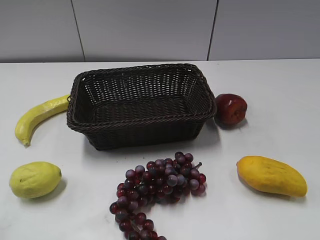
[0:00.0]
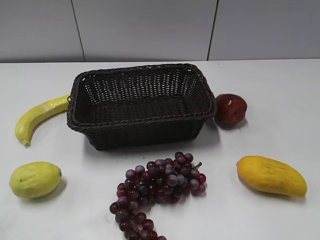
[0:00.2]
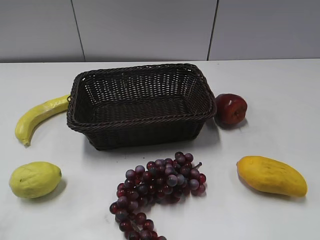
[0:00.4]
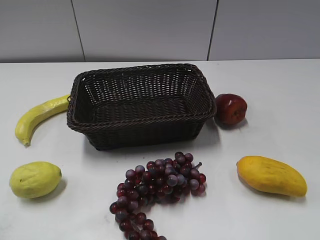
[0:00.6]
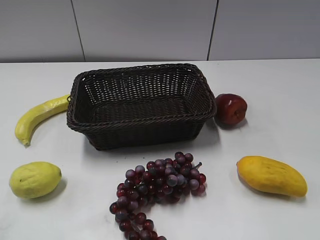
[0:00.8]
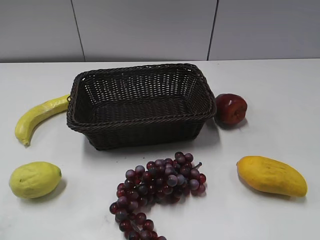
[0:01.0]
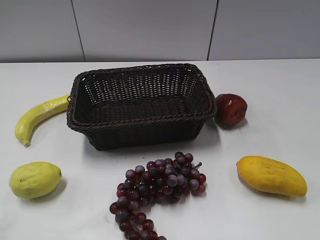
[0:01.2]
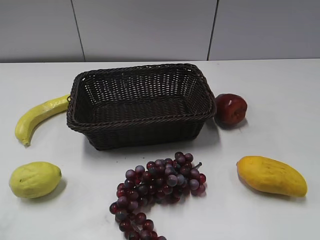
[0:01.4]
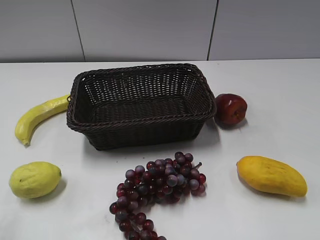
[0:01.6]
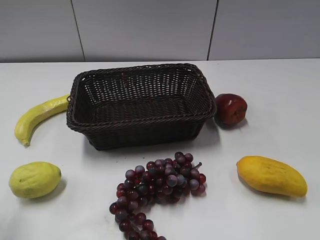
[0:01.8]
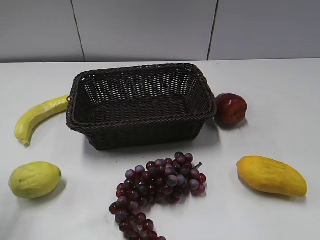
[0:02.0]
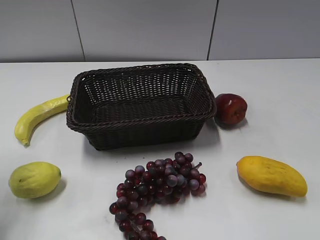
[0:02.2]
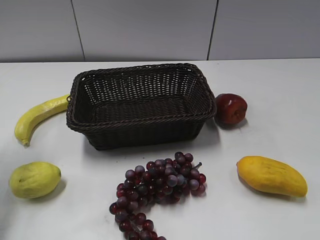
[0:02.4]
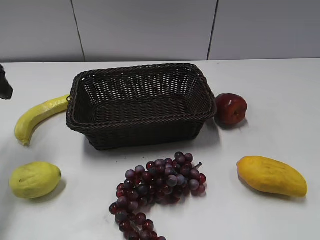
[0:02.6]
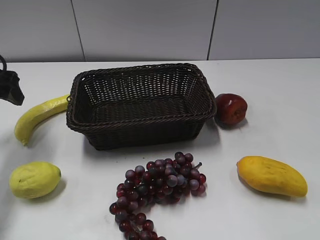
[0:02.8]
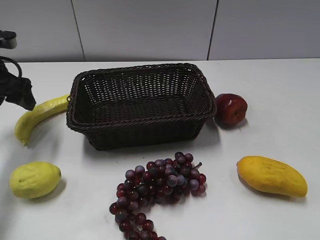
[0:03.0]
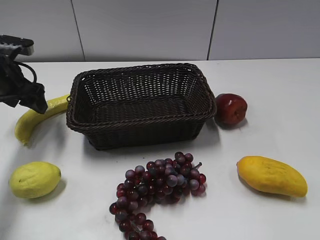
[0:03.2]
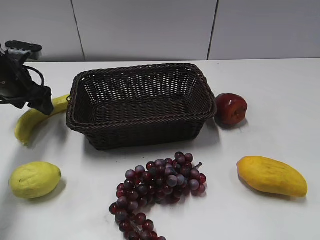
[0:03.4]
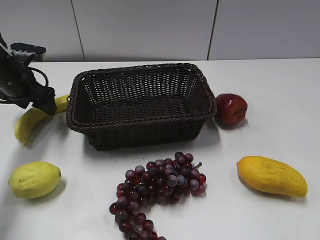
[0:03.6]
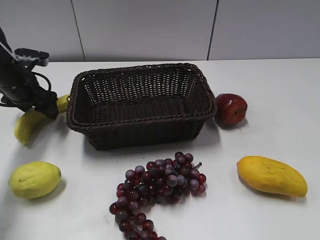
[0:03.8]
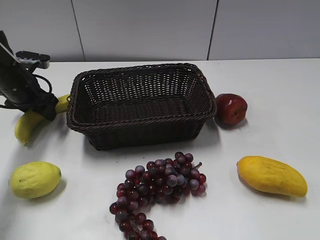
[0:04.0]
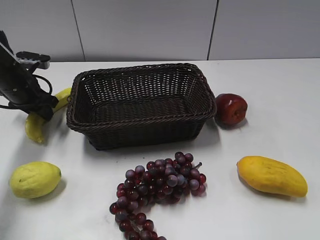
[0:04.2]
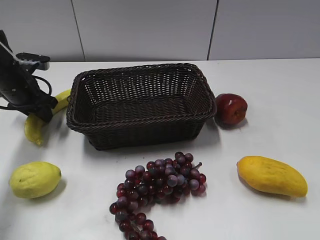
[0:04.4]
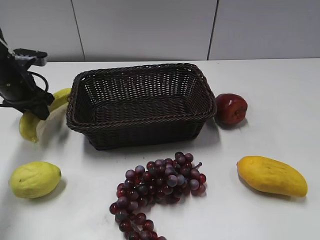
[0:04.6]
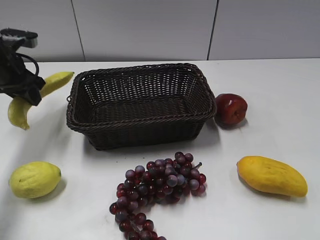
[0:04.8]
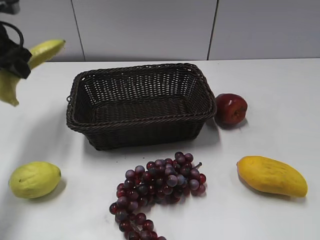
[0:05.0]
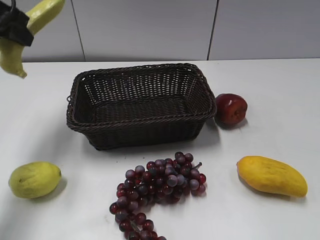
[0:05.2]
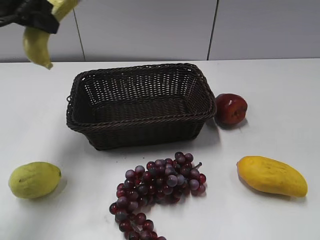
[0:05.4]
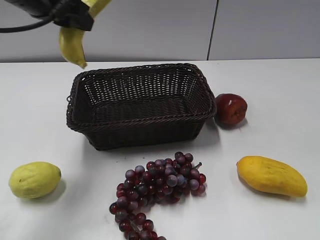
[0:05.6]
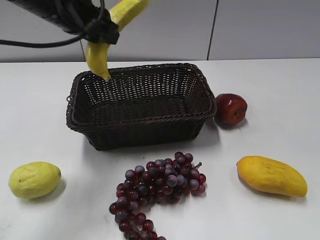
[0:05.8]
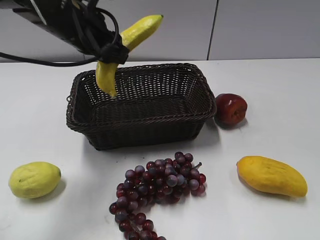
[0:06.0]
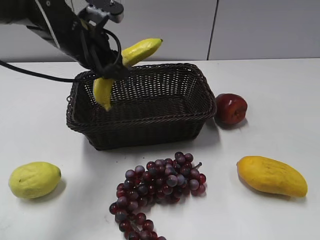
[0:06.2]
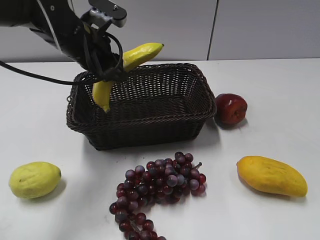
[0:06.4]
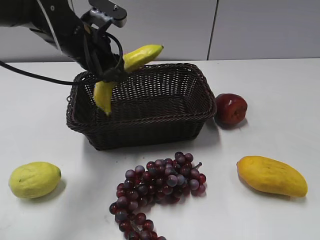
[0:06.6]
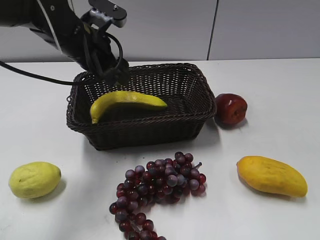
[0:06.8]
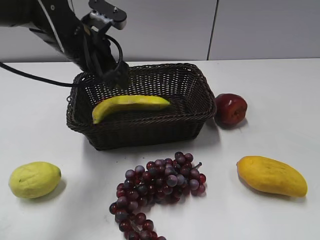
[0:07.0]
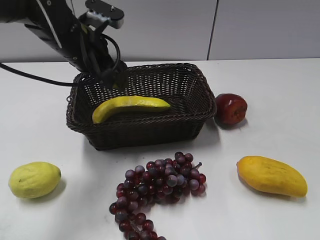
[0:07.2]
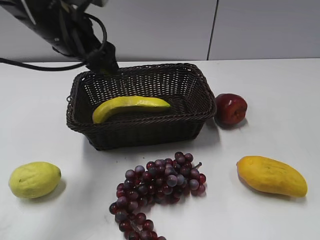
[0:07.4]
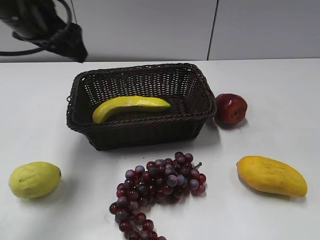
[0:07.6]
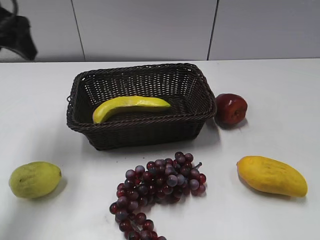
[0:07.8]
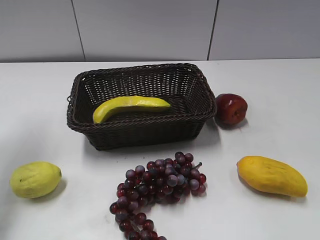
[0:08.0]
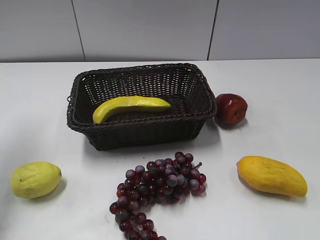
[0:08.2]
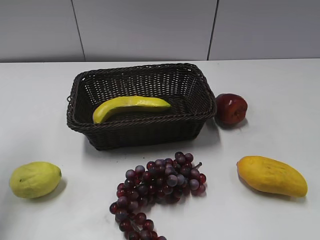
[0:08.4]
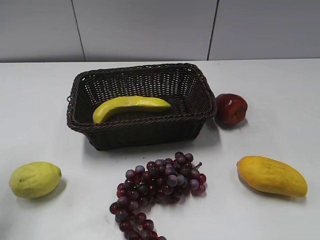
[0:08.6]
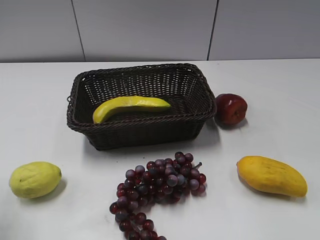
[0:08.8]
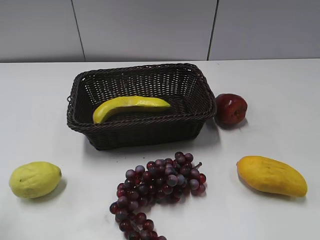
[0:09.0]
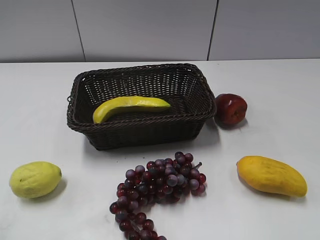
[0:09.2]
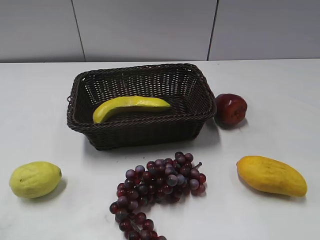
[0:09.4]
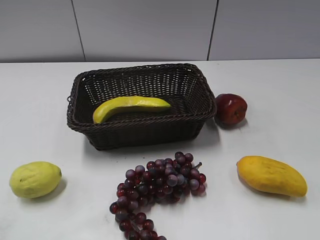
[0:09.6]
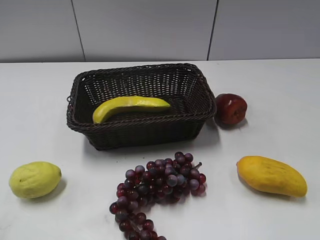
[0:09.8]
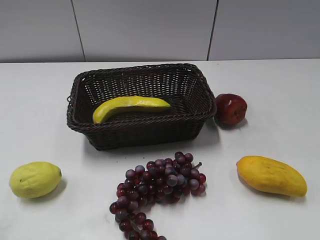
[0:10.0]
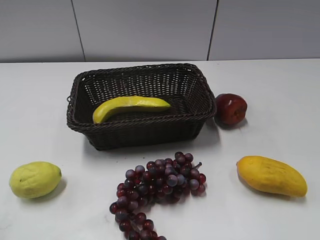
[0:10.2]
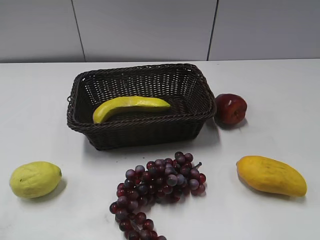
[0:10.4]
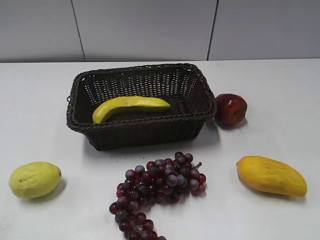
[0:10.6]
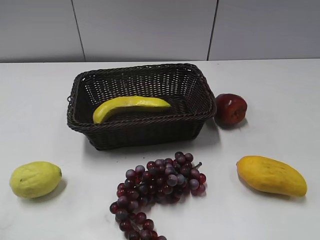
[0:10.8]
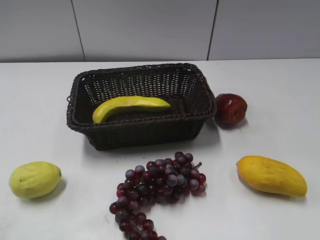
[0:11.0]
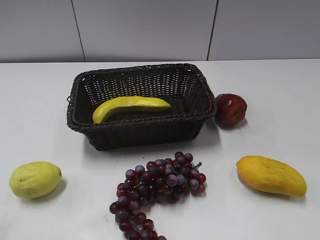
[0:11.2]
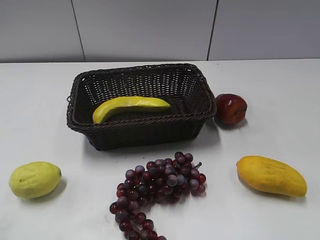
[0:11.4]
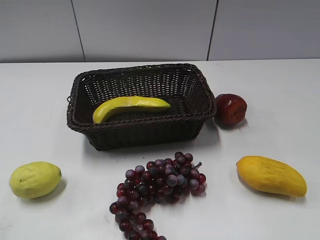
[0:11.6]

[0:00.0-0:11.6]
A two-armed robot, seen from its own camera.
Step, 0:02.4 to 0:04.2: Grasp the banana with left gripper.
Step, 0:04.4 to 0:07.0: Place the banana in the basket with left gripper.
0:01.4 to 0:02.8: The left gripper is displaced forward by about 30 cm.
0:02.8 to 0:04.4: The left gripper goes approximately 10 cm downward and forward, and closes its fingers.
0:04.4 to 0:05.8: The left gripper travels upward and to the right by approximately 20 cm.
0:05.8 to 0:07.2: The left gripper travels downward by about 5 cm, and opens up.
0:07.2 to 0:08.8: The left gripper is displaced backward, to the left and upward by some 30 cm.

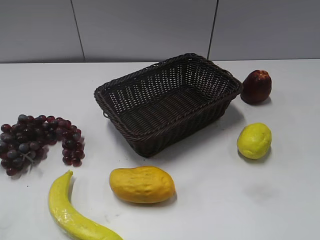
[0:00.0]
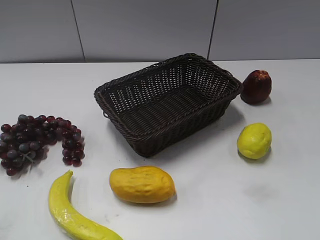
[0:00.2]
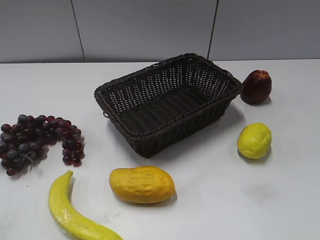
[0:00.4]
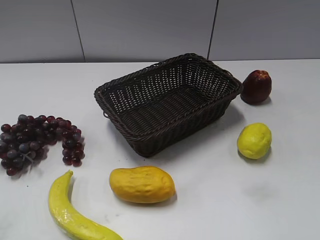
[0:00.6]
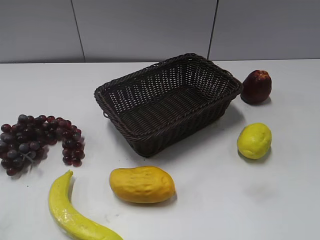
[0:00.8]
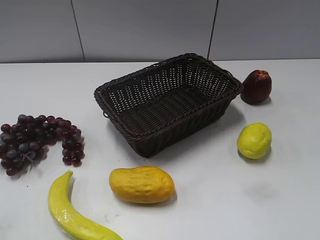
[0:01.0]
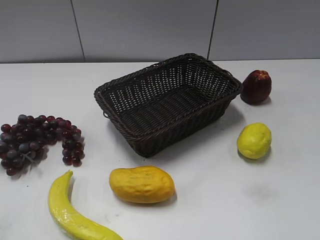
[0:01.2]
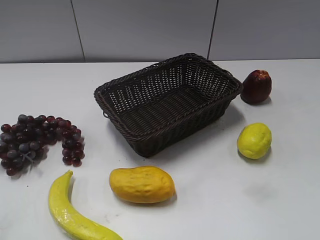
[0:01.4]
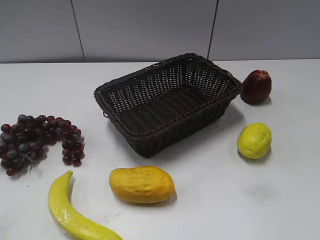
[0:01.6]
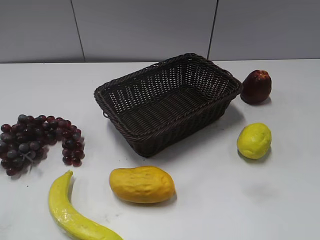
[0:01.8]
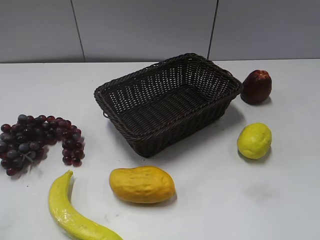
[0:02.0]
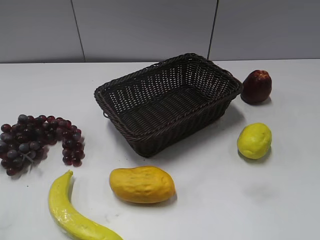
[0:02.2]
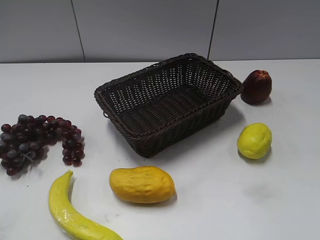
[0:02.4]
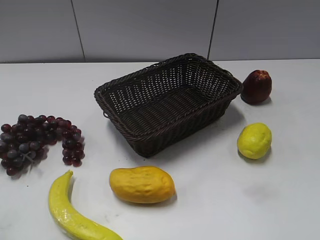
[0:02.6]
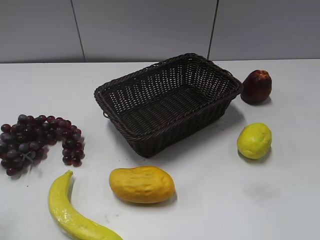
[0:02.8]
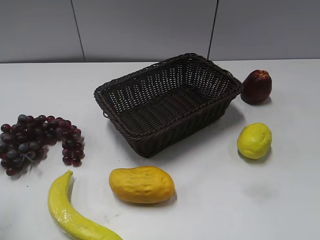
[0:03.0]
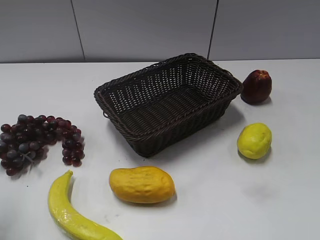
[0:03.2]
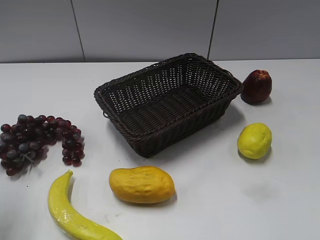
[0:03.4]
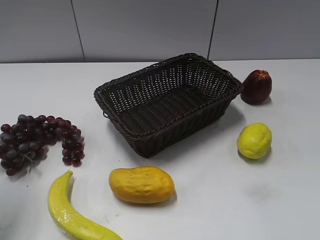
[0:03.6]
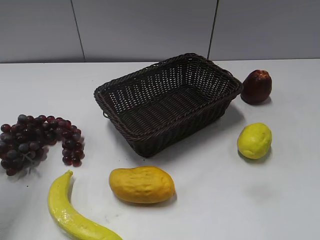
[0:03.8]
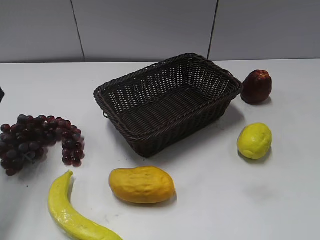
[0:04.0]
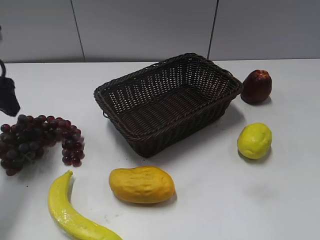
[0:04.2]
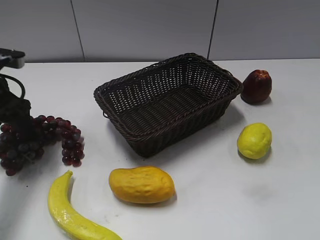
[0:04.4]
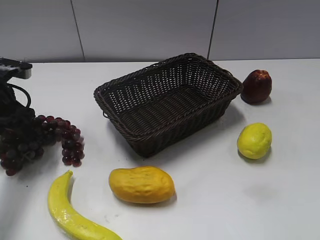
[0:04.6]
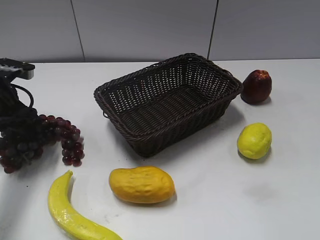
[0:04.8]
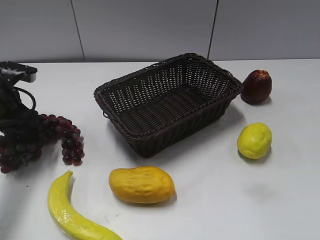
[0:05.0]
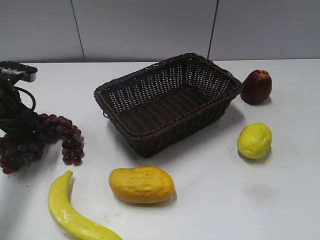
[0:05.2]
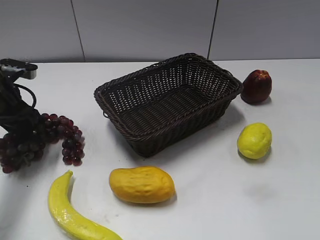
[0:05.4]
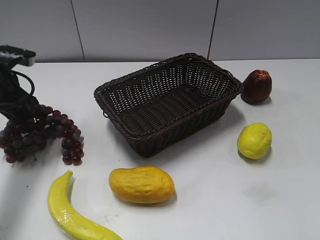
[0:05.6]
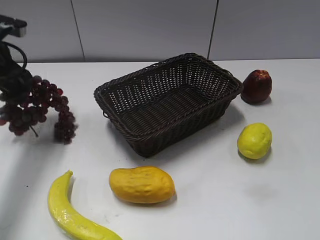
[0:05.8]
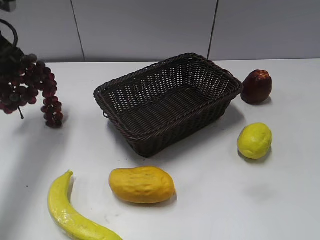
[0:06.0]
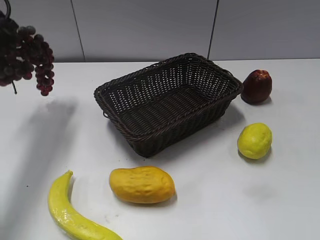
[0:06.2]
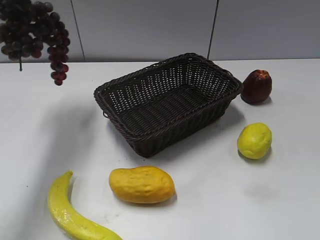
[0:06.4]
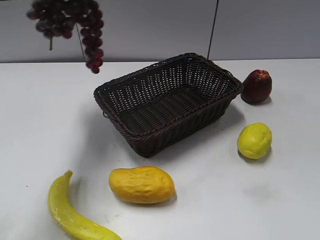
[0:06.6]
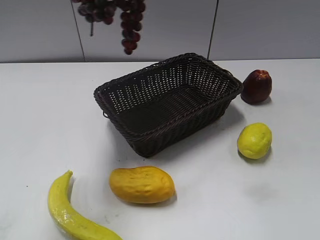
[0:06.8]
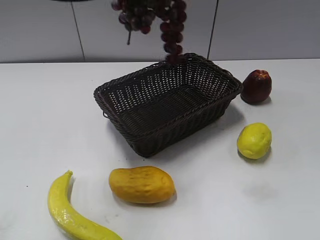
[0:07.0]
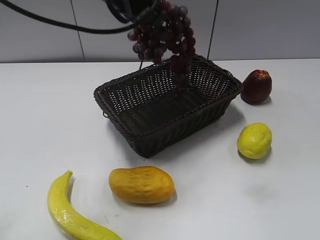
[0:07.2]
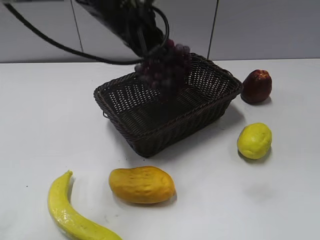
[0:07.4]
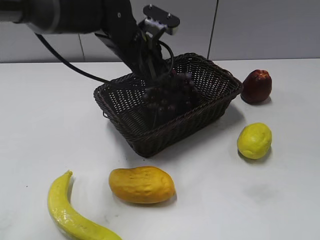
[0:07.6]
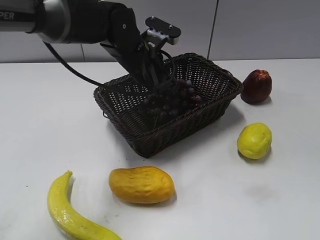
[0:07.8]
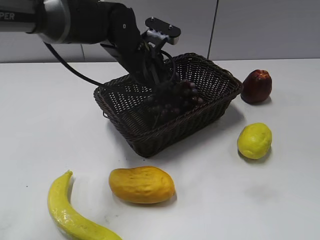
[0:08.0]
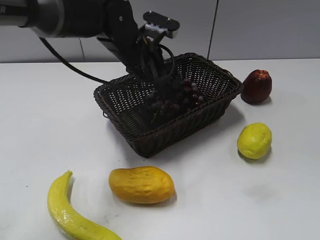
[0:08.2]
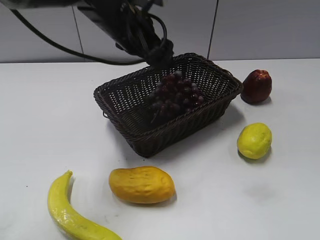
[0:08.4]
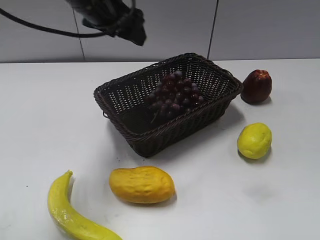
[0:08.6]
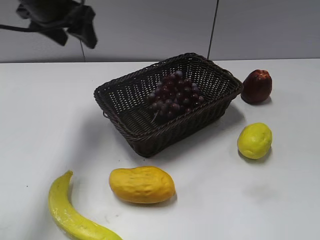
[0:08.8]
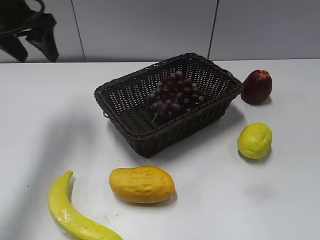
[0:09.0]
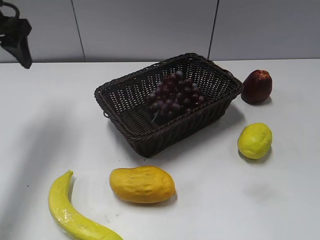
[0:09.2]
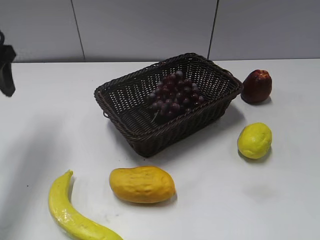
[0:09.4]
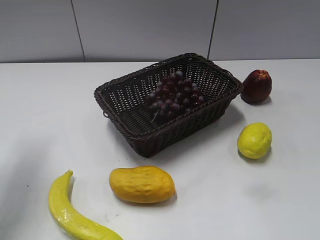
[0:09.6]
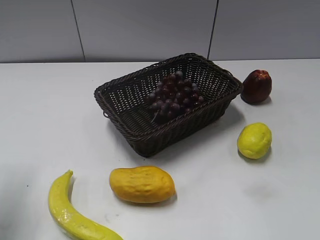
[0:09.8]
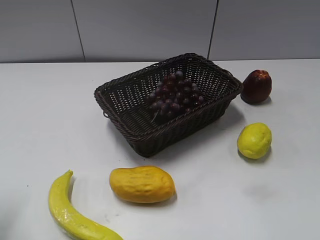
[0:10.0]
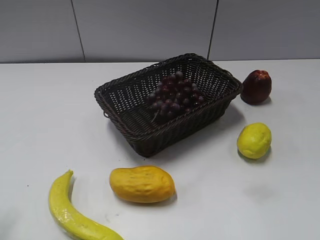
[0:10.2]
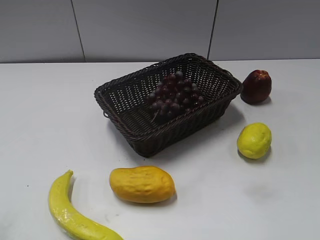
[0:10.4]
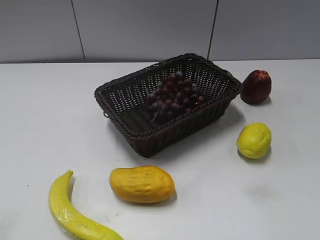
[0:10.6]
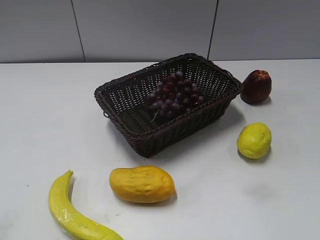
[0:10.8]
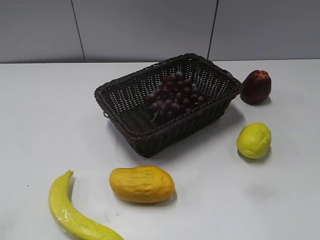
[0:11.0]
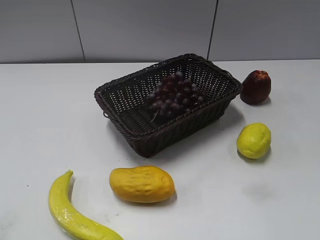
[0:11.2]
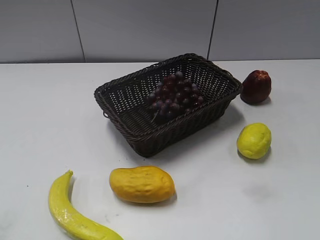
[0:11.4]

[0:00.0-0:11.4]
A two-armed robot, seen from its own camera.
Step, 0:04.0 to 0:04.8: Grasp the grape with left gripper.
Step, 0:05.0 to 0:08.0: Place the grape in the basket with left gripper.
0:02.8 to 0:04.2: The left gripper shifts roughly 20 cm forward.
0:04.2 to 0:05.6: The left gripper moves approximately 5 cm, and closes up.
0:05.6 to 0:07.2: The left gripper is displaced to the right and upward by some 25 cm.
0:07.2 to 0:08.6: The left gripper heads to the left, covering roughly 5 cm, reaches approximately 10 cm downward, then returns, and opens up.
0:08.6 to 0:10.0: The left gripper goes about 30 cm backward and to the left.
